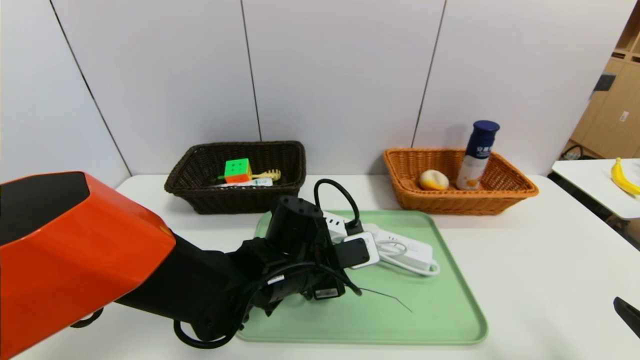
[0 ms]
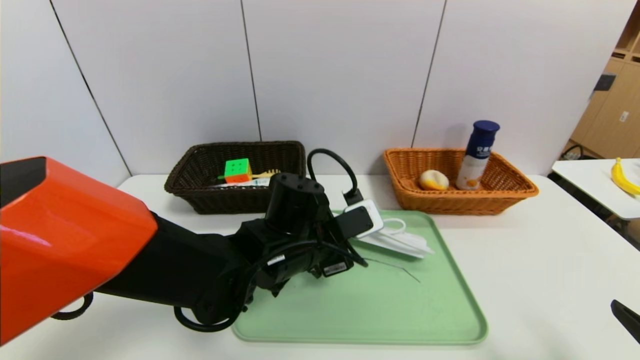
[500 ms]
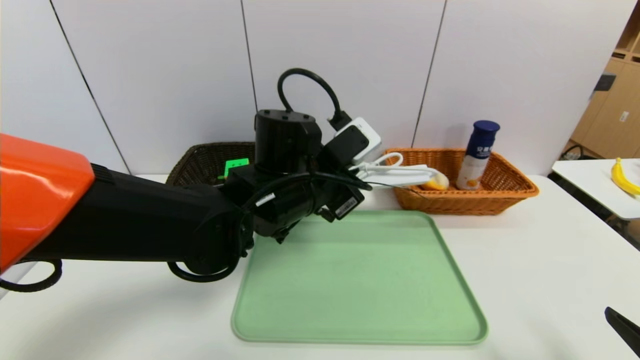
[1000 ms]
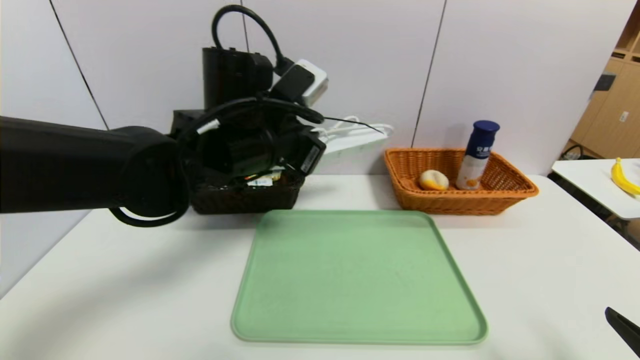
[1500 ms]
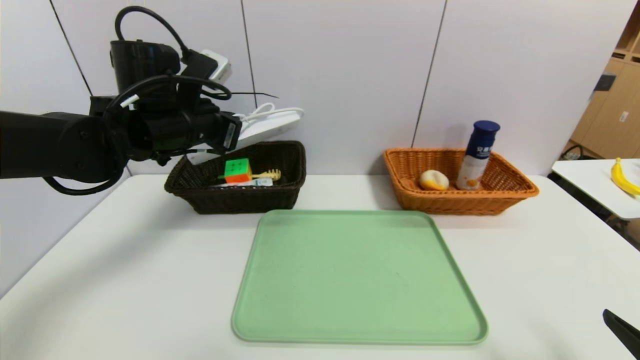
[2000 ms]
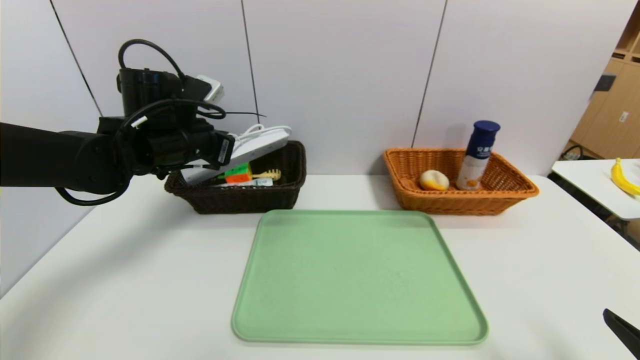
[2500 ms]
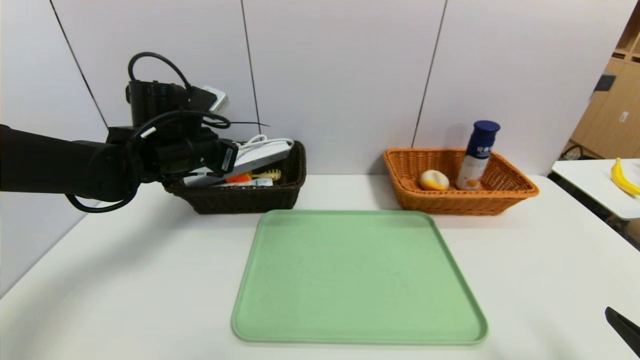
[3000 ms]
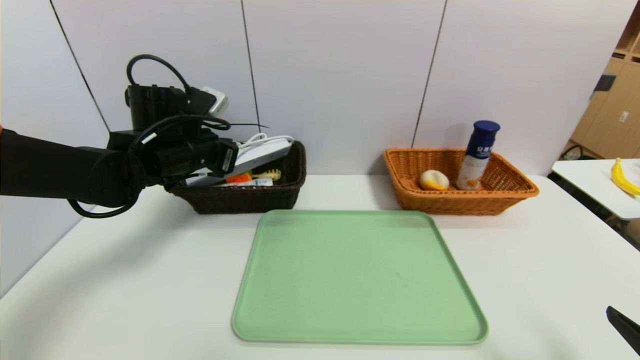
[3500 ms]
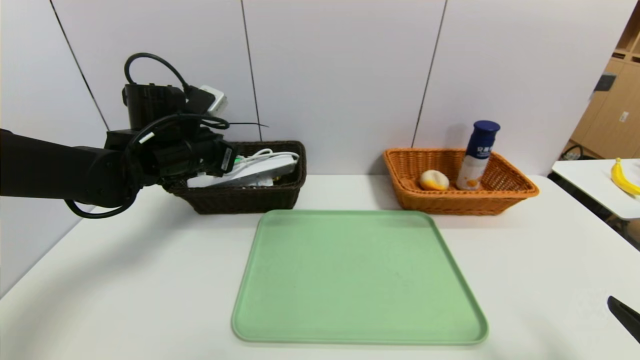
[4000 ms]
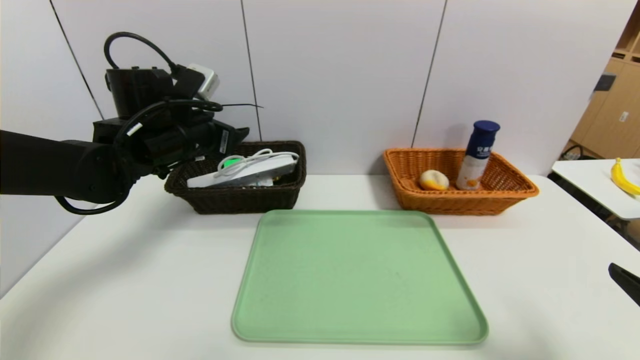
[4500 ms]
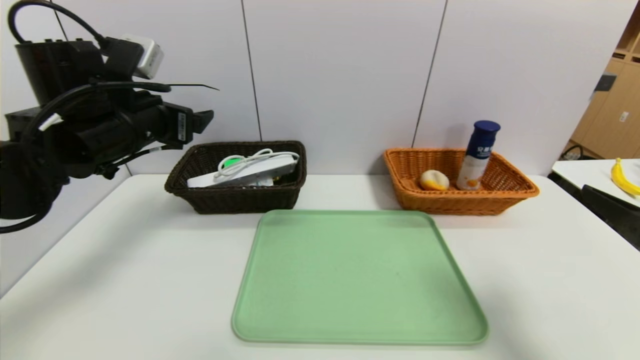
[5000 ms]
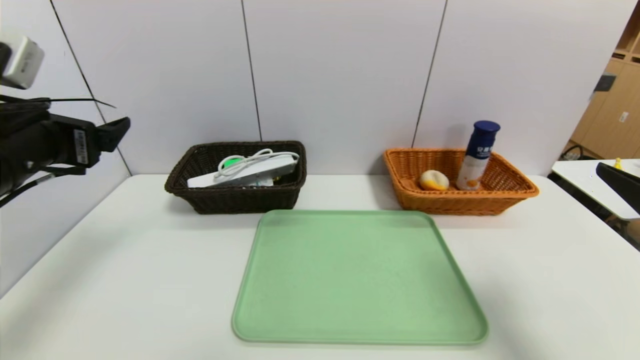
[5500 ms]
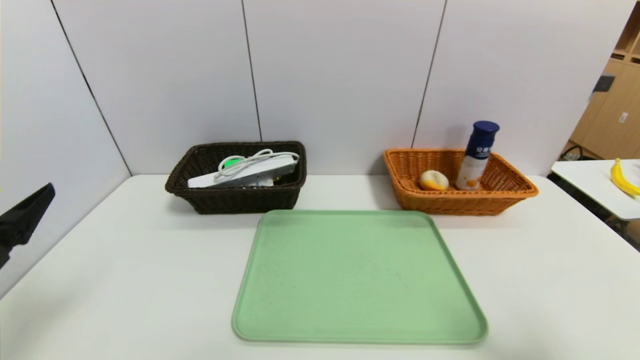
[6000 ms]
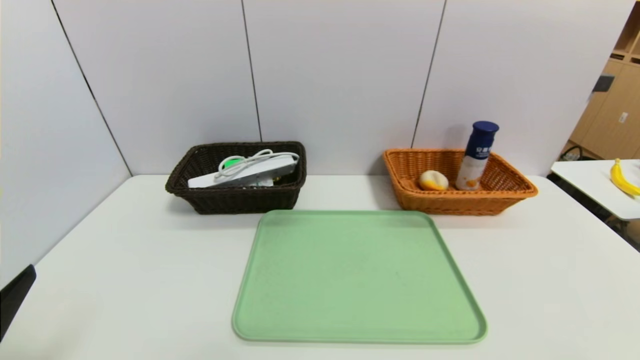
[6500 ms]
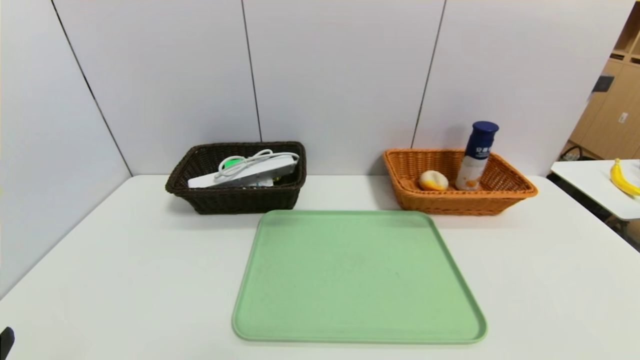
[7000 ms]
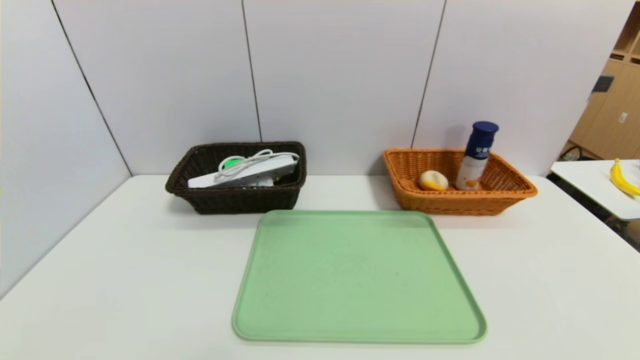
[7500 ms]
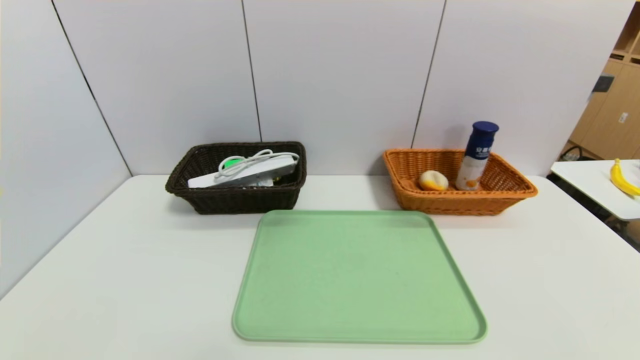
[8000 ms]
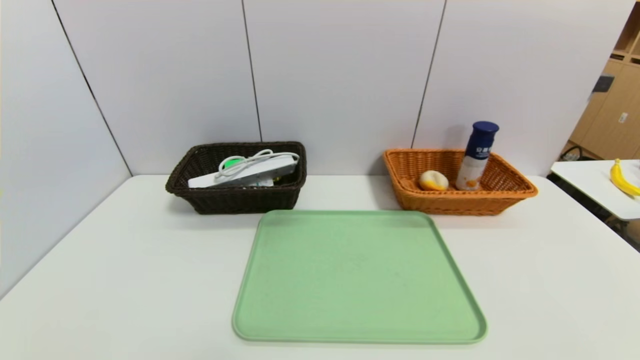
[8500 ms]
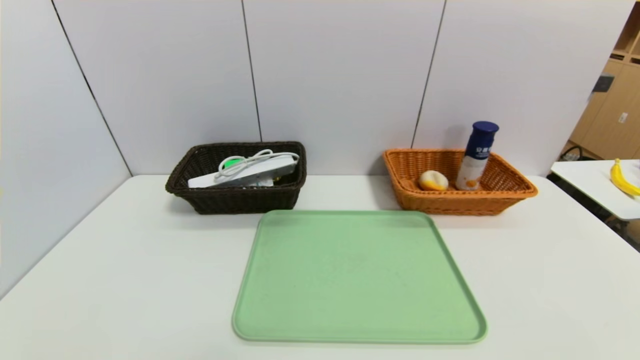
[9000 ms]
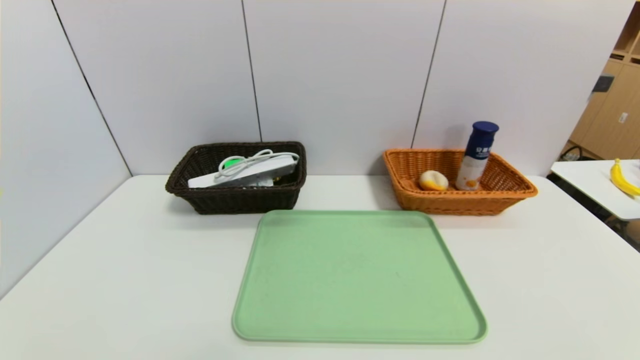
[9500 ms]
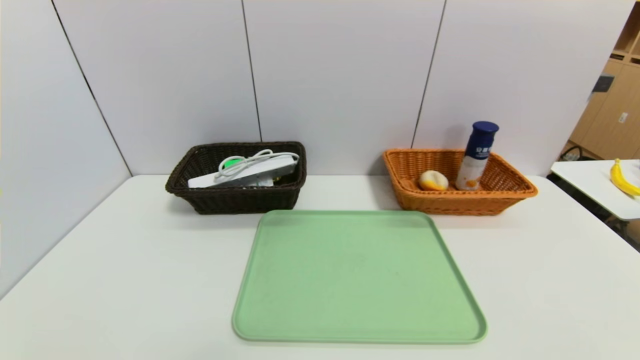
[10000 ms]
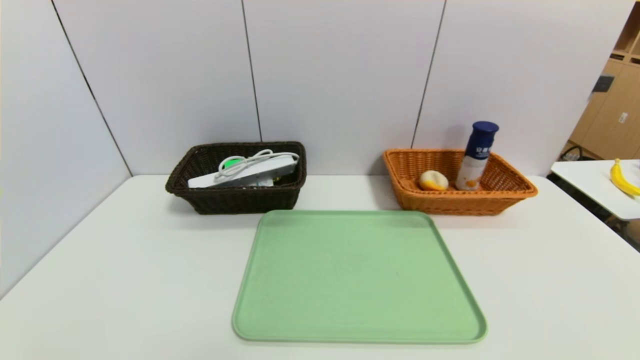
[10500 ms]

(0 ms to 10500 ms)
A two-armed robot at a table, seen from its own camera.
Task of the whole recording: place the food in the right basket with the right gripper, and place the non food items in the left basket with the left gripper.
Step, 0 ms - 4500 ms: Grasp the power strip and put it in the left basket.
0 ms - 2000 ms: The left gripper travels to the left, upward and forward by some 25 cm.
2000 ms - 4000 ms: The left gripper opens up.
4000 ms - 6500 ms: The right gripper goes about 5 cm backward, while the left gripper travels backward by about 35 cm, and opens up.
6500 ms - 8500 ms: The left gripper travels downward and backward by about 10 cm.
